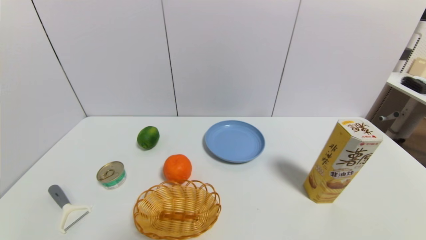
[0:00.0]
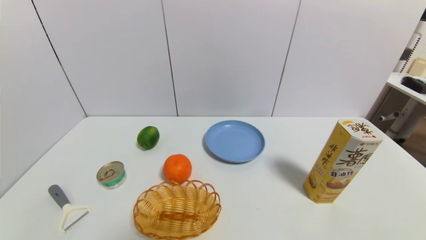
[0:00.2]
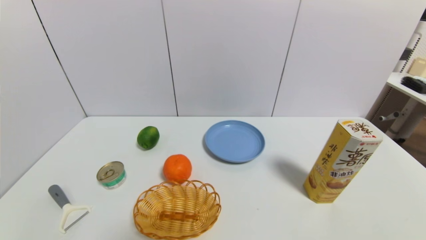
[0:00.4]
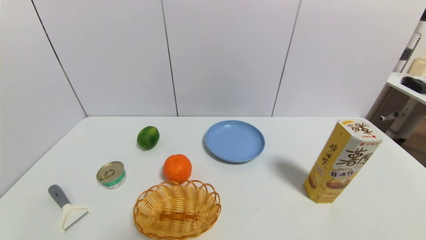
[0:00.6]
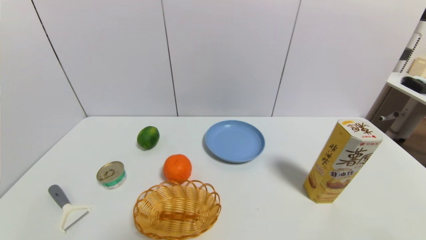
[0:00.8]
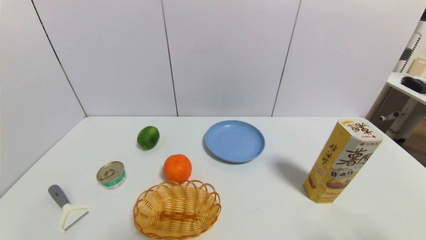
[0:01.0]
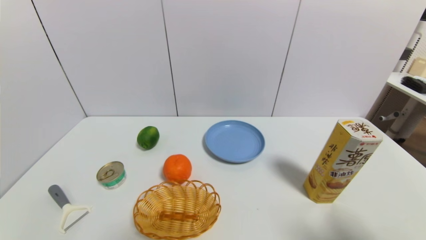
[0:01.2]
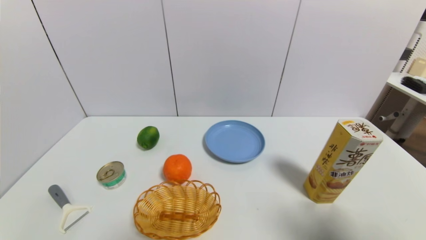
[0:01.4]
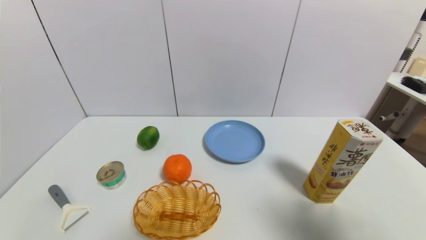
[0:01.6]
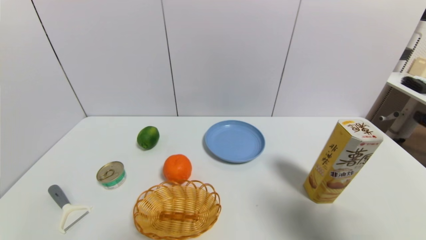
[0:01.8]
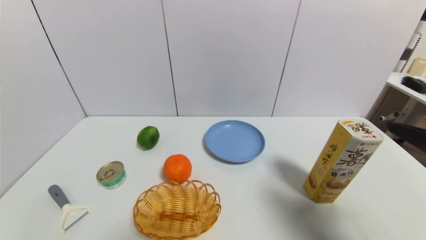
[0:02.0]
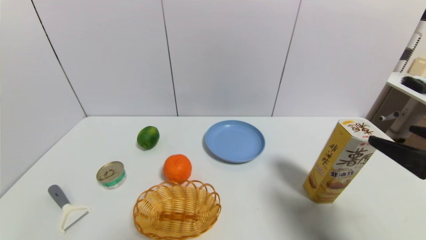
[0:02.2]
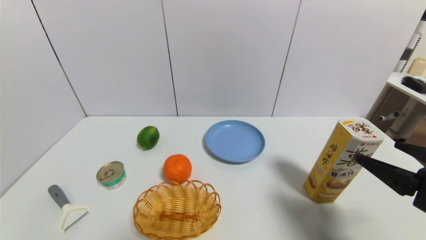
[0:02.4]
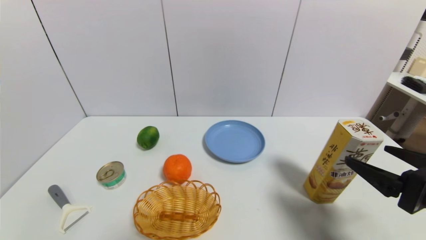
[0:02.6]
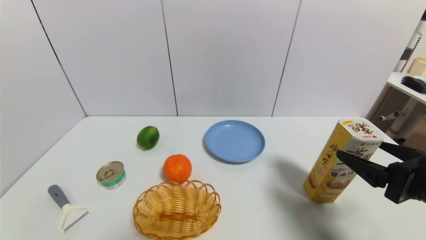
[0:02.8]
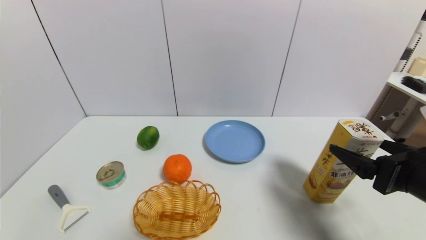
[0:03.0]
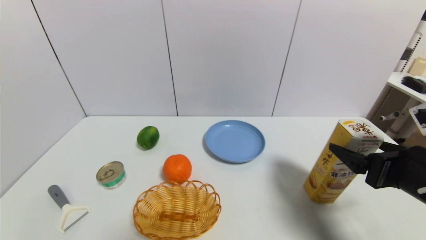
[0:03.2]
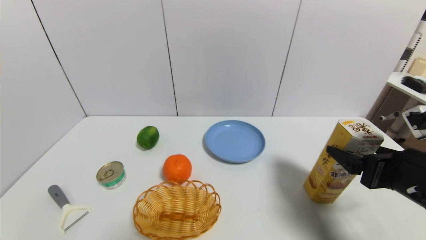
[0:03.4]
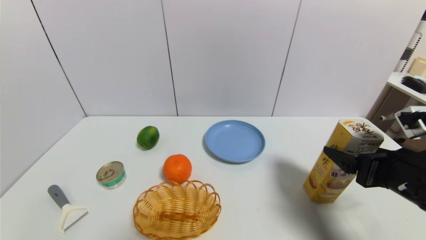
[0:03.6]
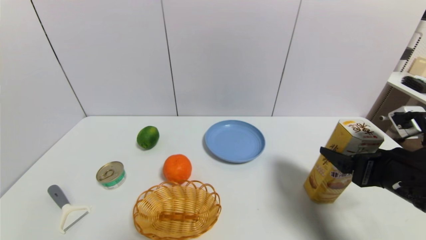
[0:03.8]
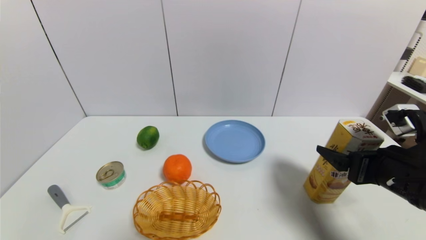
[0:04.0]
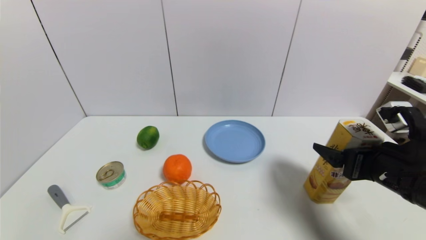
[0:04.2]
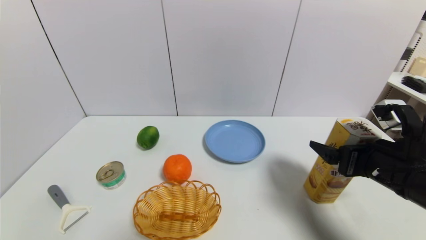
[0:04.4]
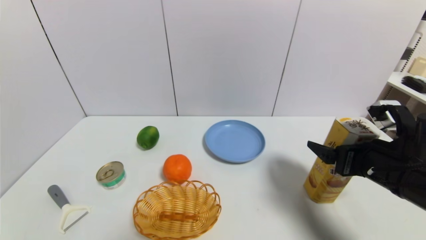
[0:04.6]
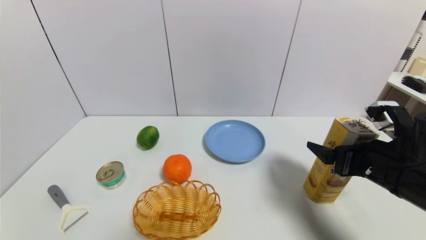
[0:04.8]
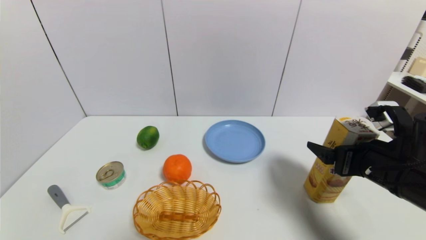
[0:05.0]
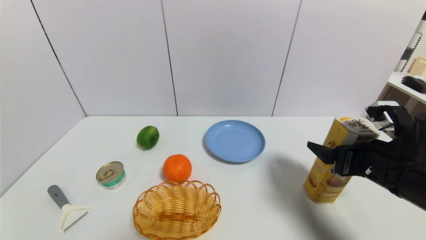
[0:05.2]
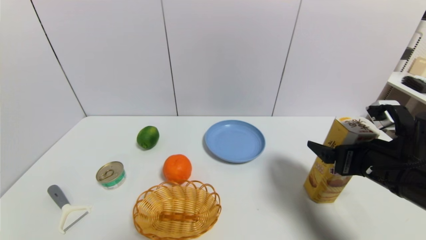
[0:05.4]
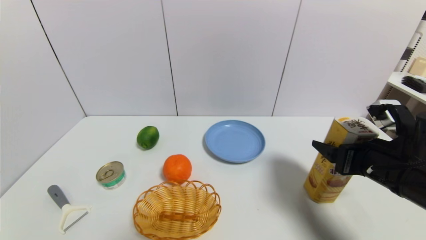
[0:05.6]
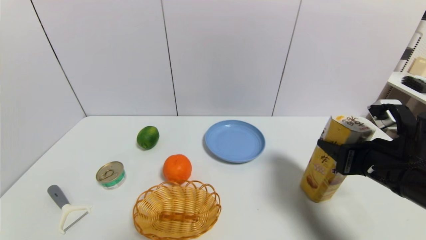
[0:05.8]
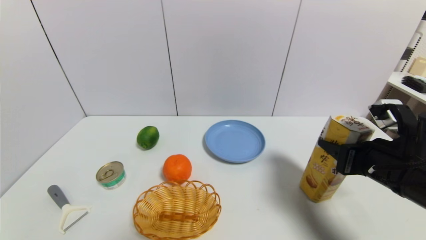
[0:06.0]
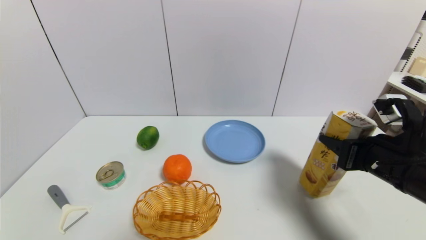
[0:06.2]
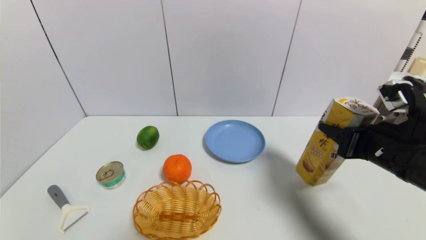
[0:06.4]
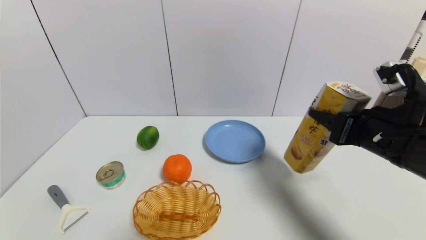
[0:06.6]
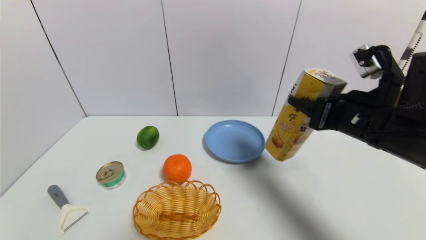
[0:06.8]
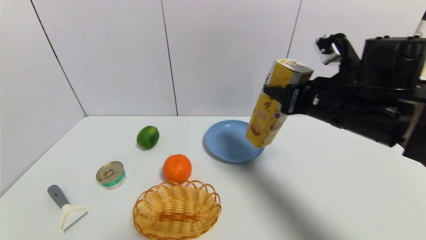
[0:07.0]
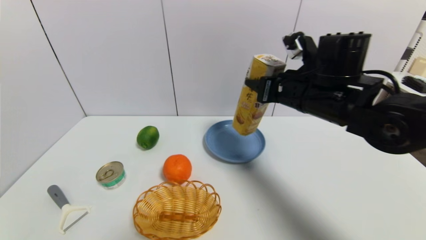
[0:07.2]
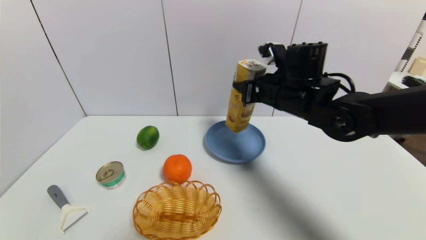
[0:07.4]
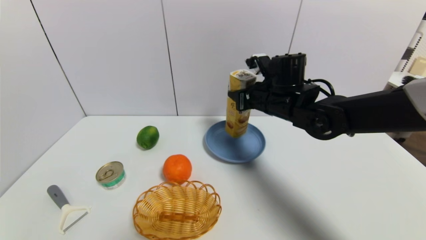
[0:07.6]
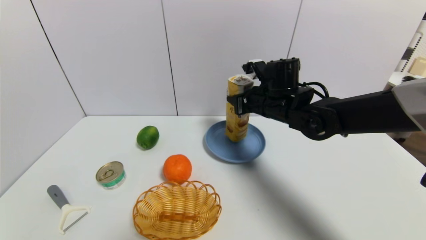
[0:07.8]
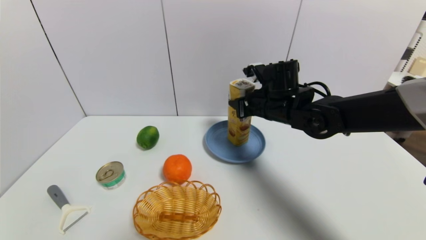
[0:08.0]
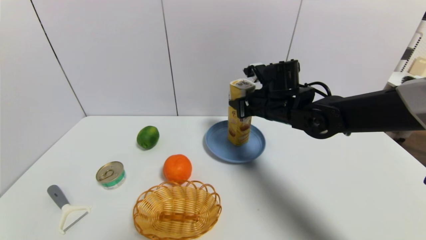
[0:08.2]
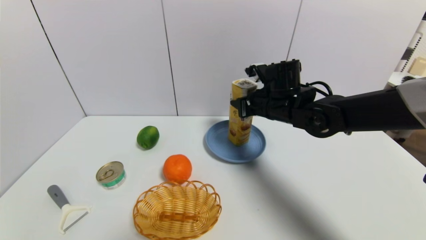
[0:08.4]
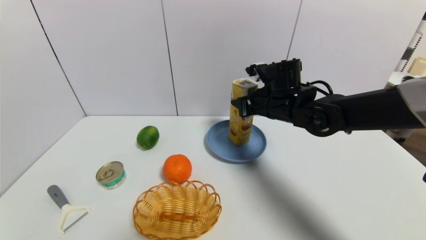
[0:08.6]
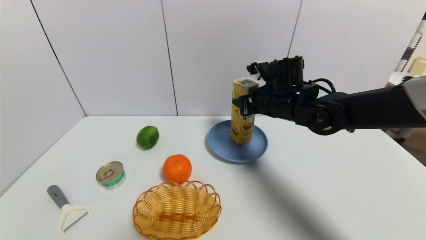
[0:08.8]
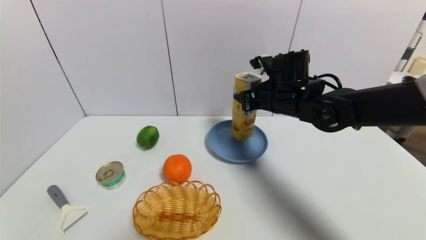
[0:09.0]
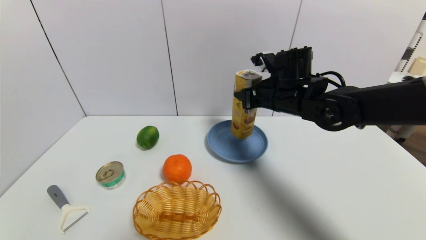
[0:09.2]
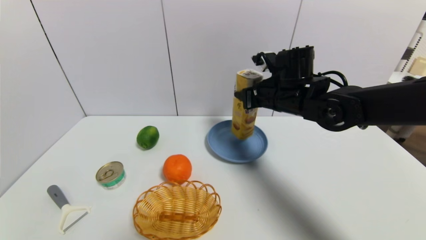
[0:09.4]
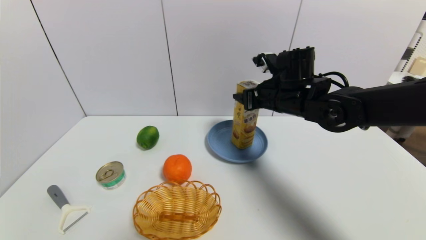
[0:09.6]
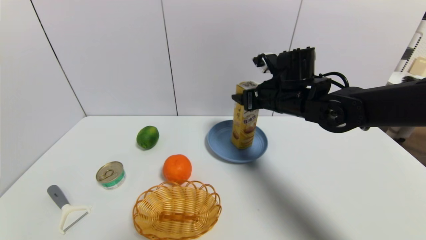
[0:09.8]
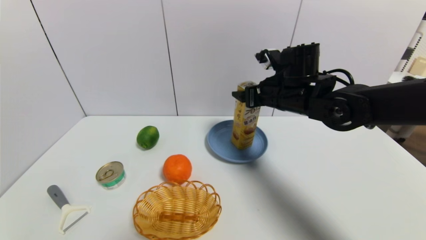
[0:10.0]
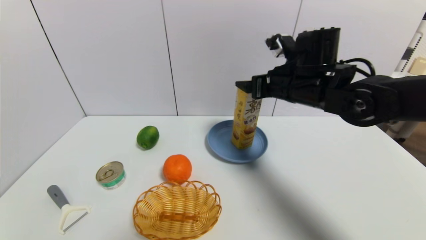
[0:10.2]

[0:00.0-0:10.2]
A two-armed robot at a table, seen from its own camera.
Task of the whole recording: use a gripper to pick the target object and place on the blue plate.
Step, 0:00.0 to 0:06.0: Grasp the potato chips with the right gripper.
0:00.0 to 0:01.4: The right gripper travels upward by approximately 20 cm.
0:01.4 to 0:03.0: The right gripper travels forward and downward by about 15 cm.
0:03.0 to 0:04.4: The grippers stay close to where they were, moving slightly.
0:04.4 to 0:05.8: The right gripper closes its fingers.
0:05.8 to 0:07.2: The right gripper moves forward, to the left and upward, approximately 20 cm.
0:07.2 to 0:08.8: The right gripper shifts roughly 5 cm forward.
0:08.8 to 0:10.2: The right gripper is displaced upward by some 5 cm, and opens its fingers.

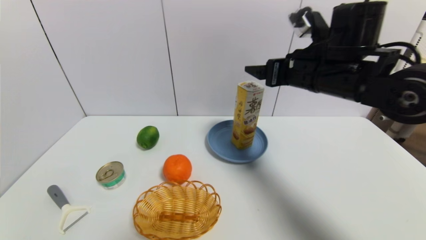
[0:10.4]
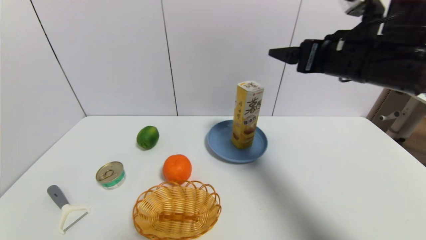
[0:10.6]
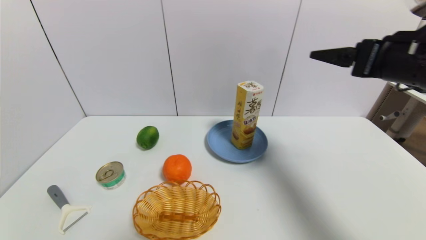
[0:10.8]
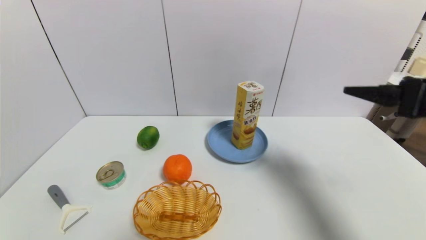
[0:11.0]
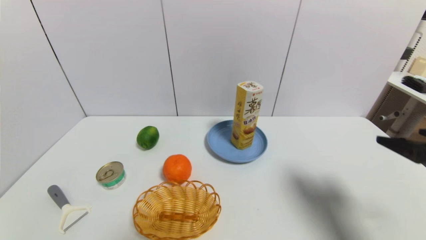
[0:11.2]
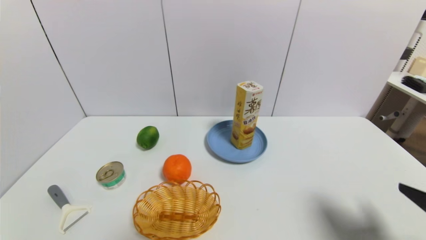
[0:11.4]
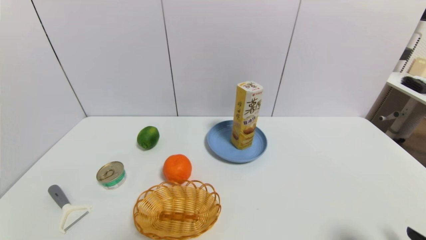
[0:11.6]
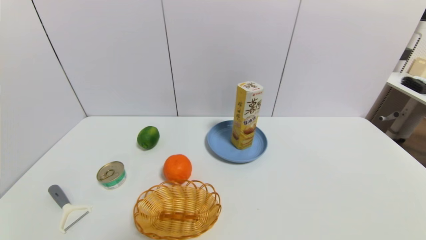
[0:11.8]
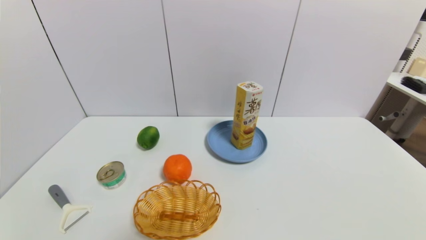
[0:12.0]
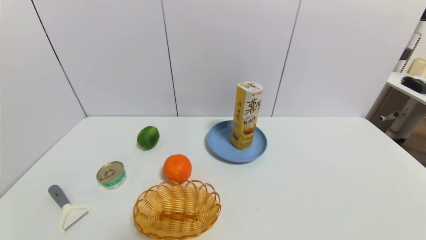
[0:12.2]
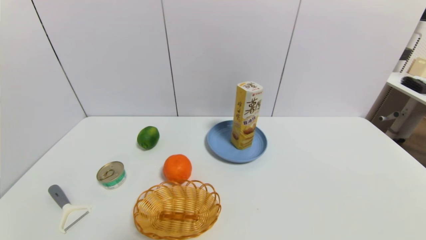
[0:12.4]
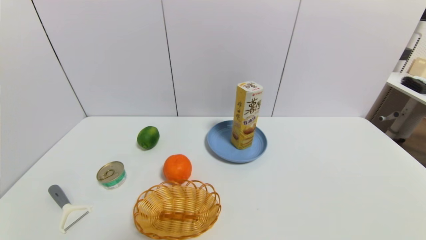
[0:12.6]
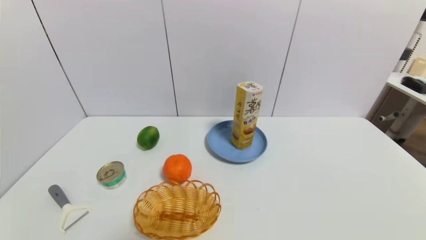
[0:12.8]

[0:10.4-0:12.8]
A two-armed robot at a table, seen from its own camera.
Task of the whole recording: use a gripper to pick the target object and place on the blue plate.
0:10.4 to 0:11.6: The right gripper shifts some 35 cm backward, to the right and downward.
